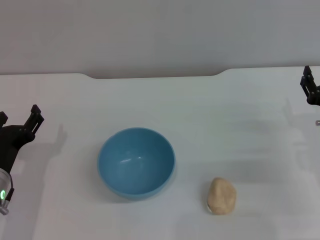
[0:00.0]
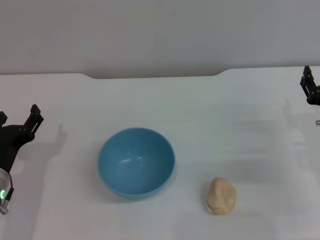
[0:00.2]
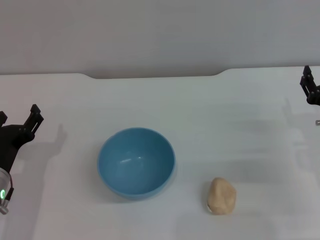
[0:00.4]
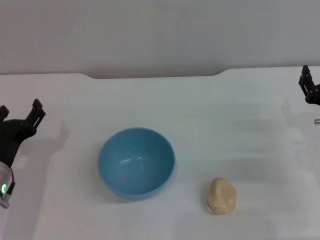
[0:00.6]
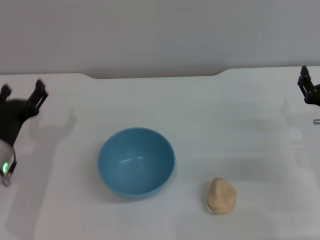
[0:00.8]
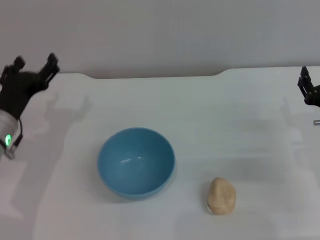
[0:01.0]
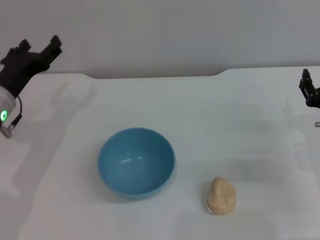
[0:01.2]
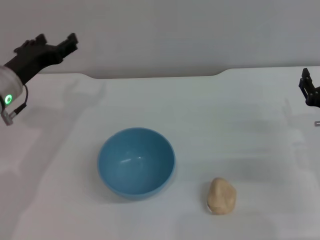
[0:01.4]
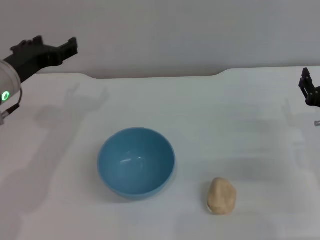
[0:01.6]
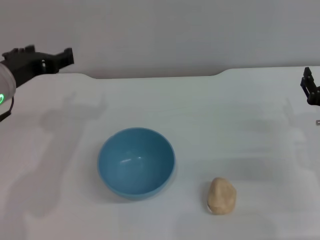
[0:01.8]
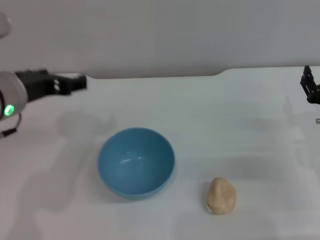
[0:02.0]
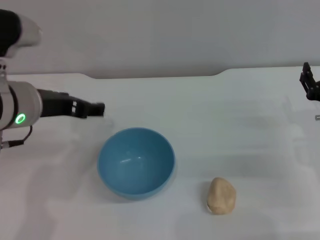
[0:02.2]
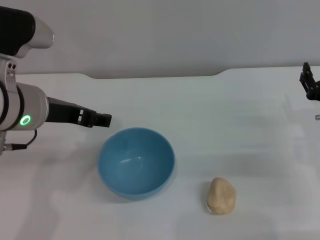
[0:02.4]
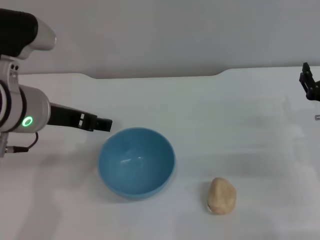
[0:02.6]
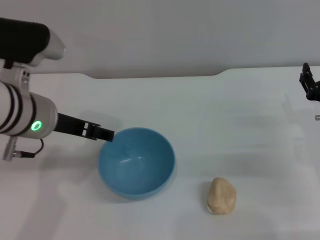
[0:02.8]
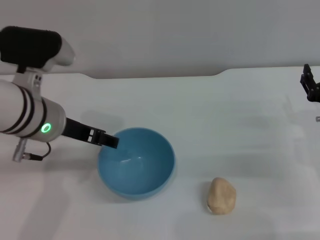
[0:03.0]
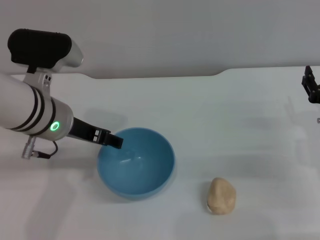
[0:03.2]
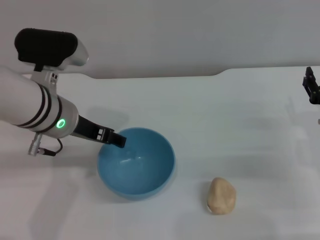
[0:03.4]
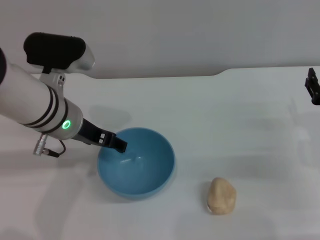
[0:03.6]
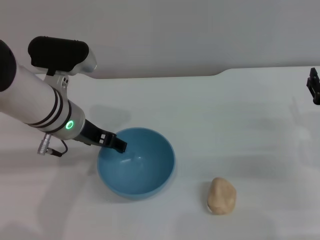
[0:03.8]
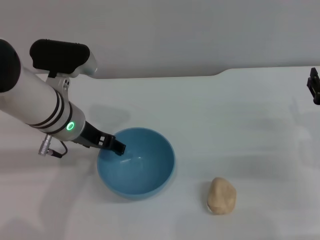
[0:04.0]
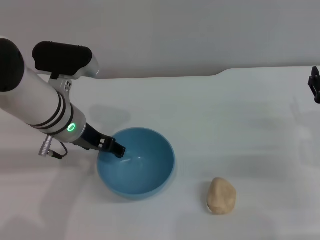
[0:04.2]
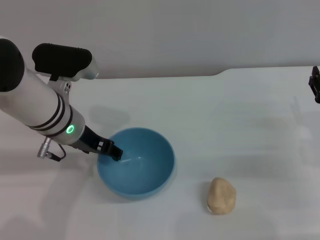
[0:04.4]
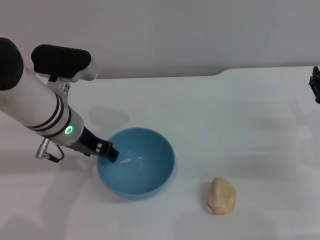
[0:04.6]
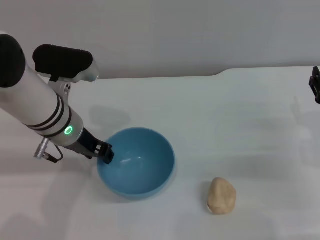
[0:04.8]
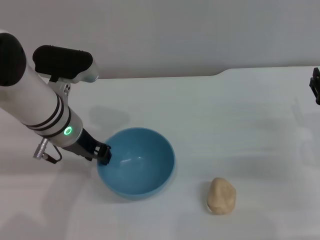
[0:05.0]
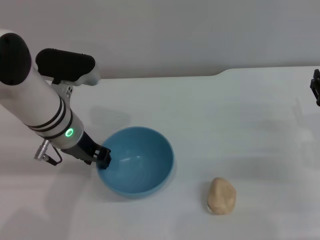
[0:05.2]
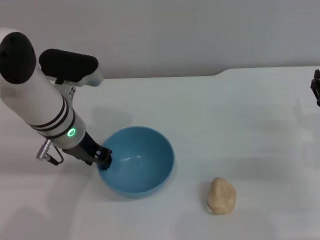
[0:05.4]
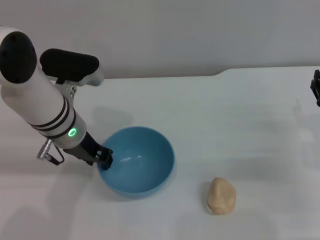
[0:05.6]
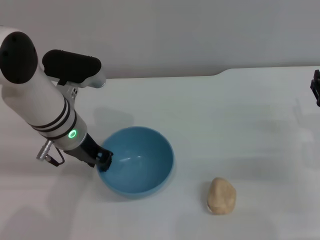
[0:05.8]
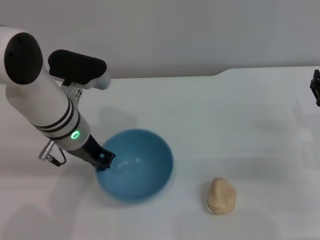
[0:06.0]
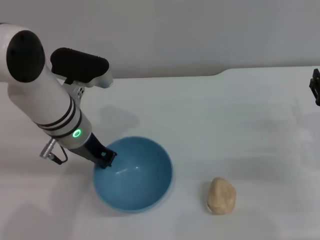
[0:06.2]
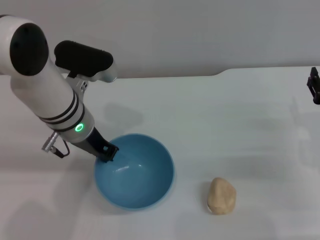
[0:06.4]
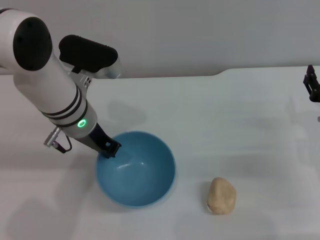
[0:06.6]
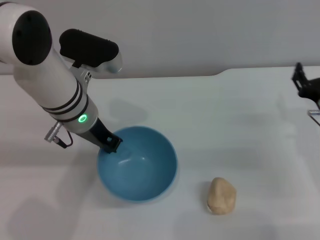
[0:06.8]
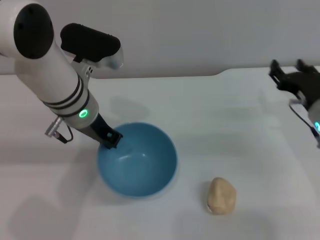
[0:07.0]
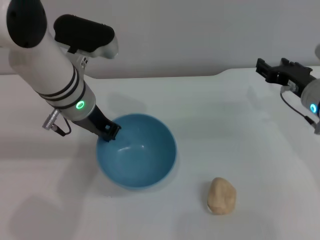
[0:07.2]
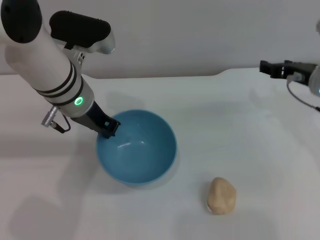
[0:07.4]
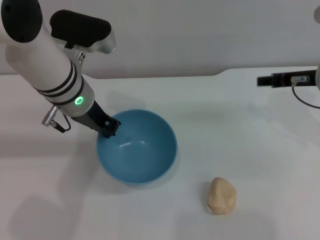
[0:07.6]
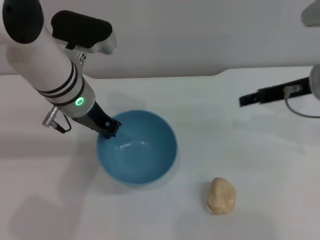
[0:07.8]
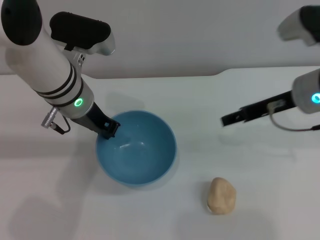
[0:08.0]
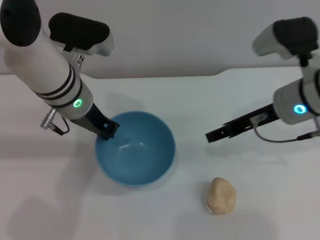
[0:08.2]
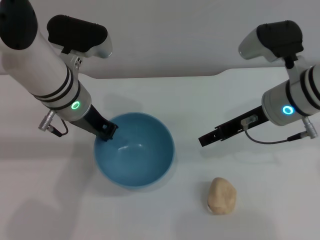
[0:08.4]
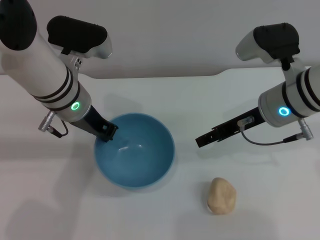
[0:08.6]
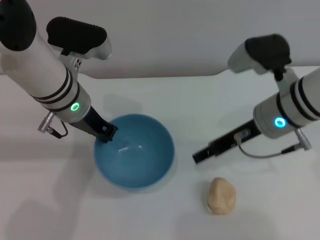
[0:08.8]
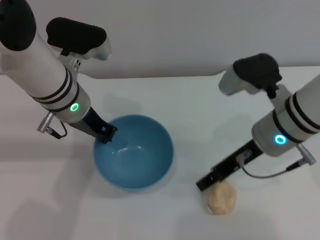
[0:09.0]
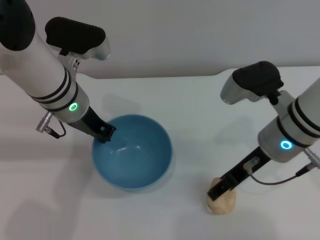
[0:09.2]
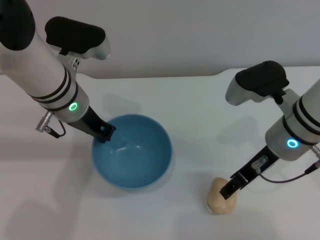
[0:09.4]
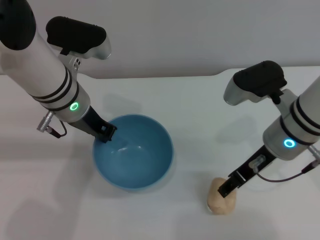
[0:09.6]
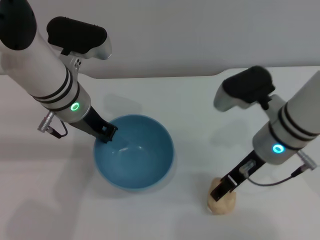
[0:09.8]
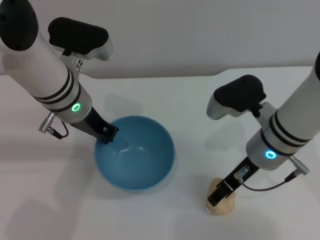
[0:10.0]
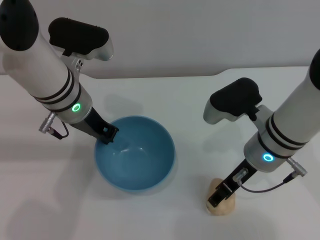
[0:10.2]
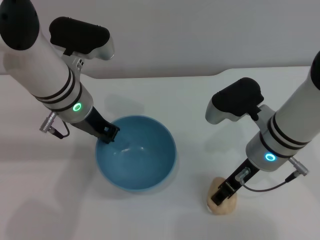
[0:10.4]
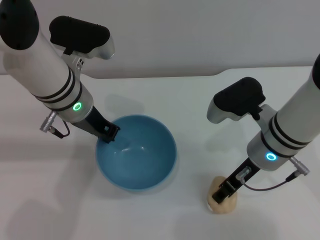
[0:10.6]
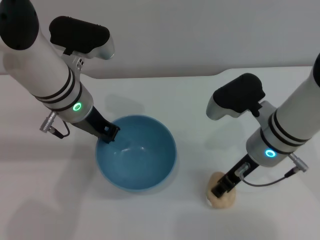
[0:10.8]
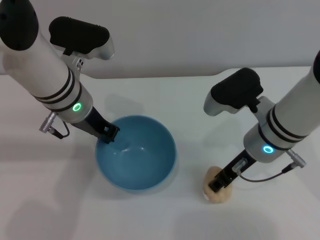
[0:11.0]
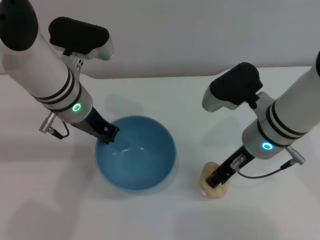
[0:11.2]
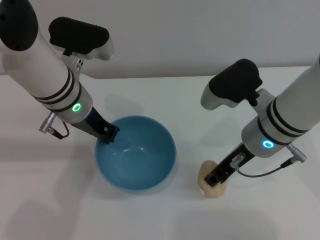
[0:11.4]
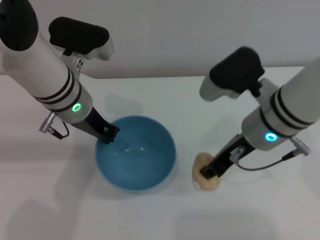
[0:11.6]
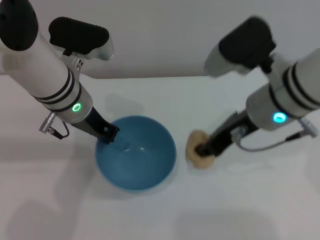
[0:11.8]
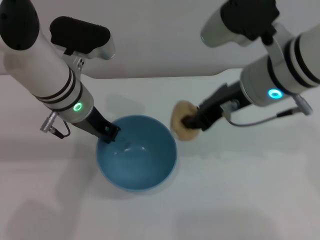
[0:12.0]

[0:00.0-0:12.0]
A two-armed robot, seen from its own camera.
Task of the whole recording: put the egg yolk pastry into the blue bowl and pour it out repeatedly.
Step, 0:00.0 to 0:07.2: Pick up the bowl with the left gripper.
Step, 0:07.4 to 0:11.6: Pick up the egg yolk pastry with the right gripper.
0:00.0 to 0:01.6: The left gripper goes roughly 15 cm upward and forward.
0:01.6 to 0:03.0: The left gripper is displaced to the right by roughly 5 cm.
0:03.0 to 0:04.4: The left gripper ends up about 5 cm from where it was.
0:04.4 to 0:06.0: The left gripper closes up.
0:06.0 to 0:07.6: The right gripper heads upward and forward, covering approximately 15 cm.
0:07.6 to 0:09.0: The right gripper travels to the left by roughly 10 cm.
0:09.0 to 0:10.4: The grippers move only a little.
0:10.4 to 0:12.0: The right gripper goes roughly 10 cm upward, and closes its fingers.

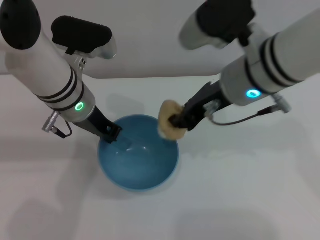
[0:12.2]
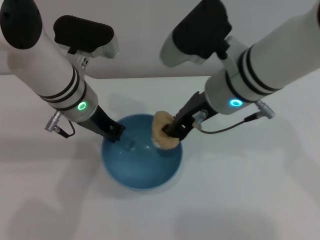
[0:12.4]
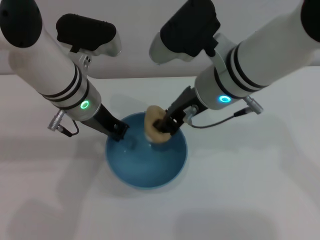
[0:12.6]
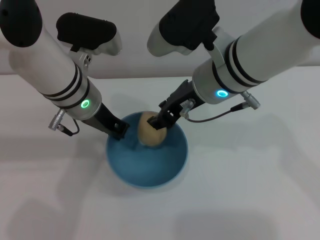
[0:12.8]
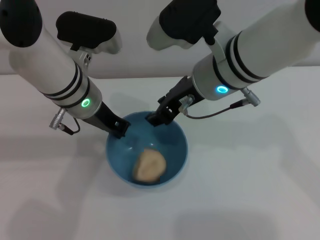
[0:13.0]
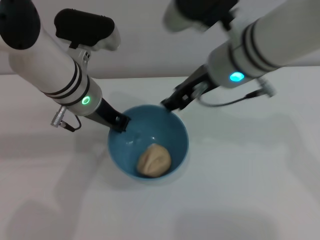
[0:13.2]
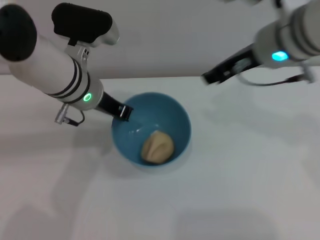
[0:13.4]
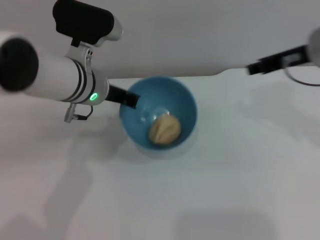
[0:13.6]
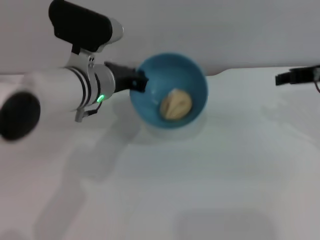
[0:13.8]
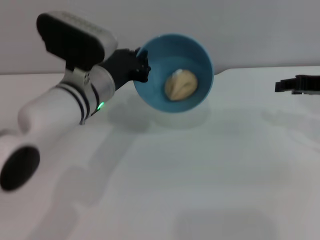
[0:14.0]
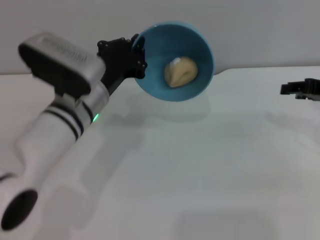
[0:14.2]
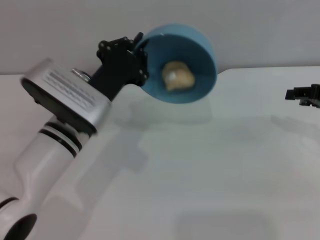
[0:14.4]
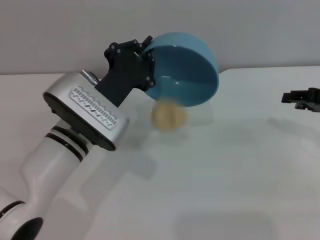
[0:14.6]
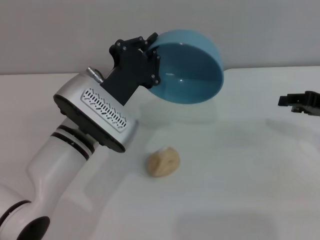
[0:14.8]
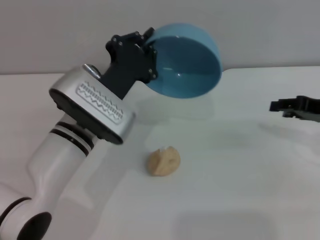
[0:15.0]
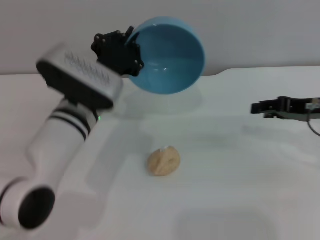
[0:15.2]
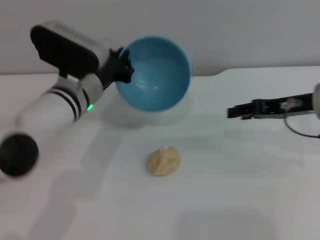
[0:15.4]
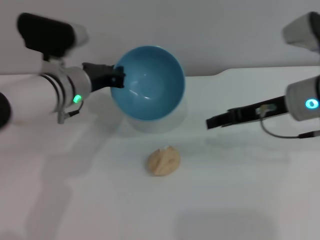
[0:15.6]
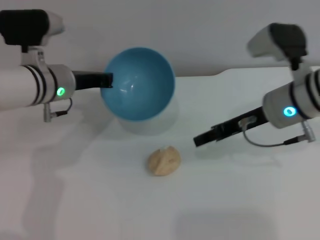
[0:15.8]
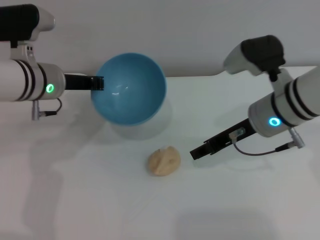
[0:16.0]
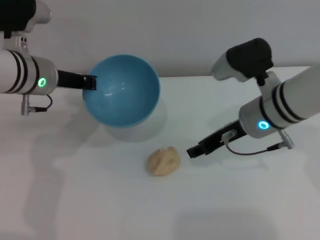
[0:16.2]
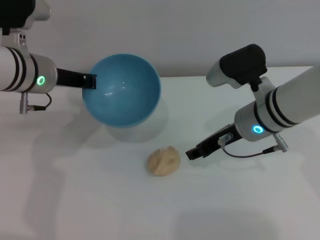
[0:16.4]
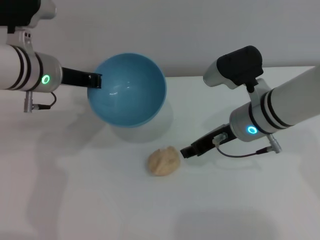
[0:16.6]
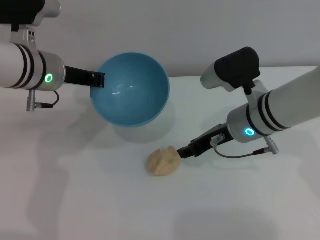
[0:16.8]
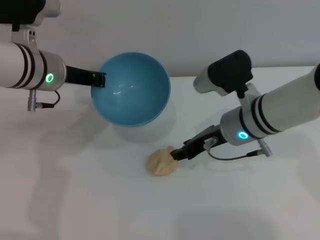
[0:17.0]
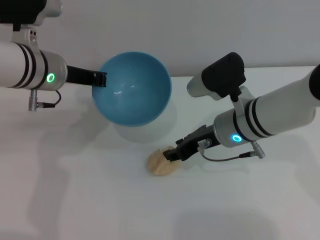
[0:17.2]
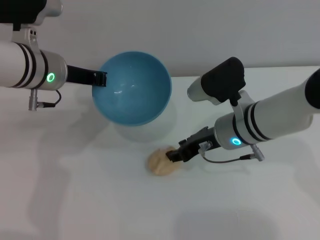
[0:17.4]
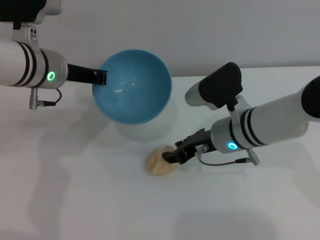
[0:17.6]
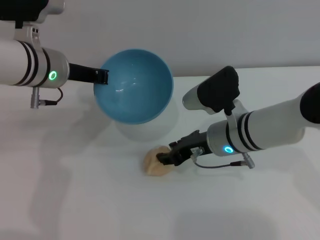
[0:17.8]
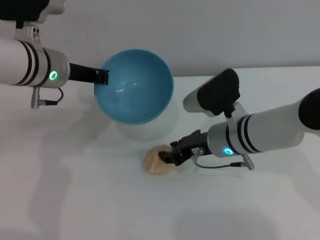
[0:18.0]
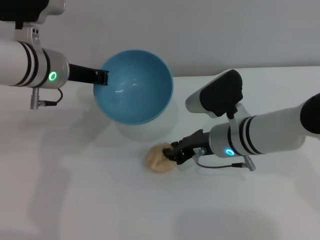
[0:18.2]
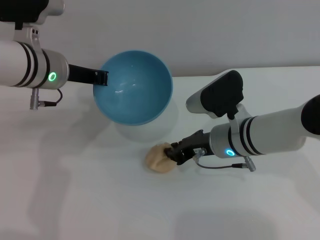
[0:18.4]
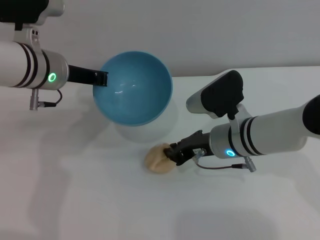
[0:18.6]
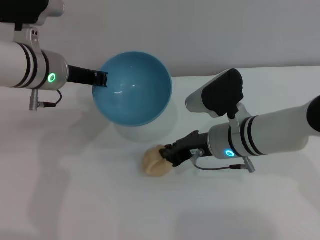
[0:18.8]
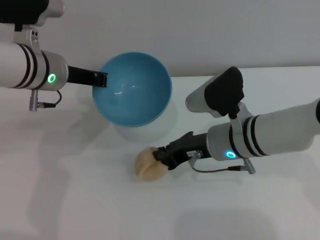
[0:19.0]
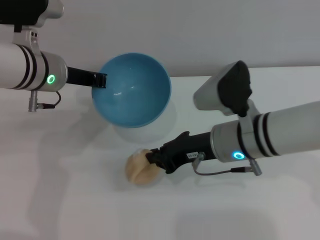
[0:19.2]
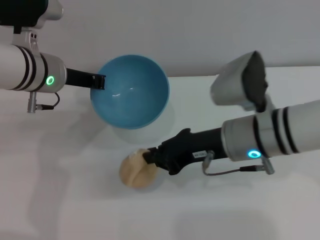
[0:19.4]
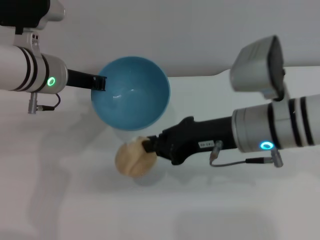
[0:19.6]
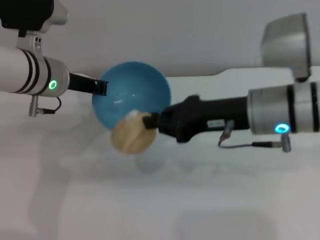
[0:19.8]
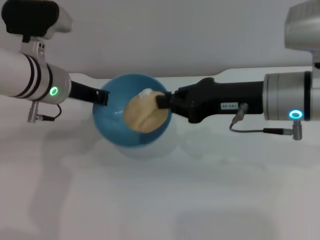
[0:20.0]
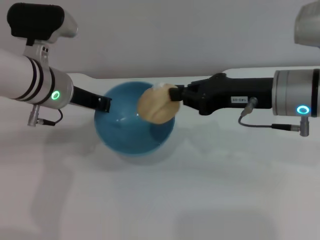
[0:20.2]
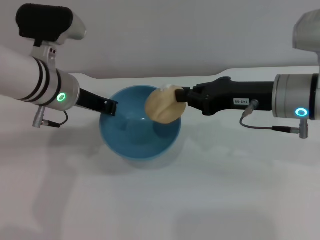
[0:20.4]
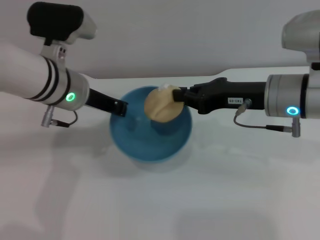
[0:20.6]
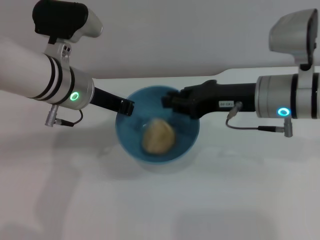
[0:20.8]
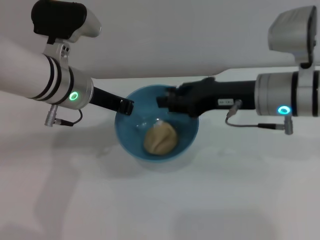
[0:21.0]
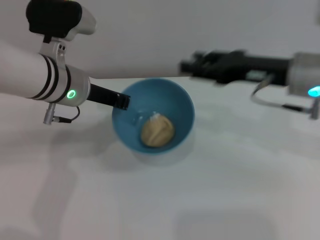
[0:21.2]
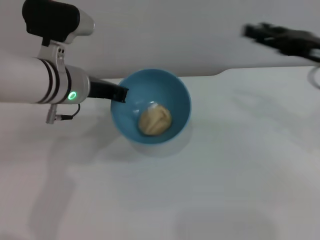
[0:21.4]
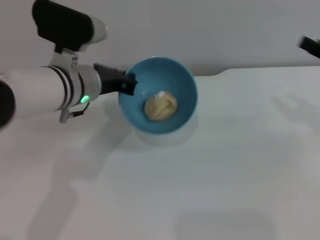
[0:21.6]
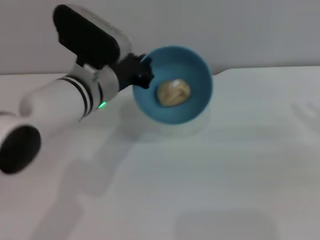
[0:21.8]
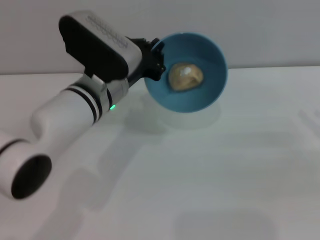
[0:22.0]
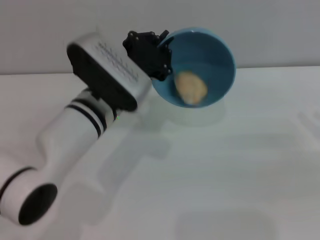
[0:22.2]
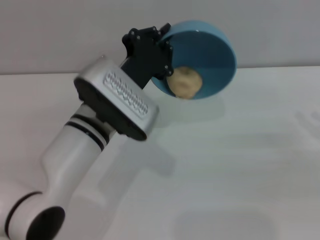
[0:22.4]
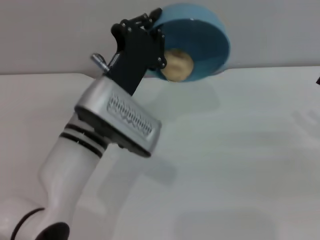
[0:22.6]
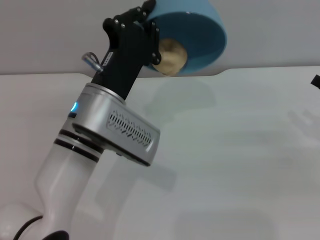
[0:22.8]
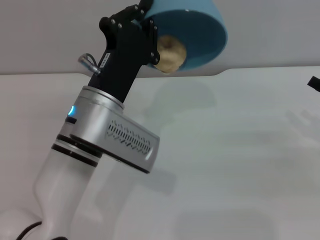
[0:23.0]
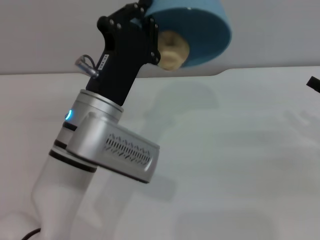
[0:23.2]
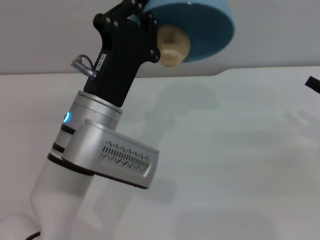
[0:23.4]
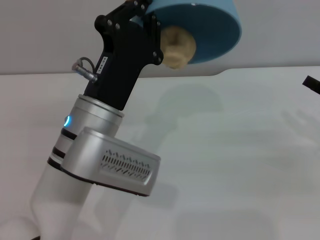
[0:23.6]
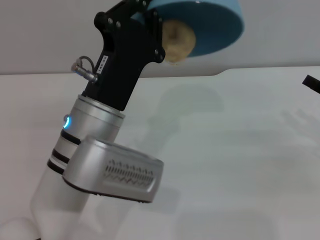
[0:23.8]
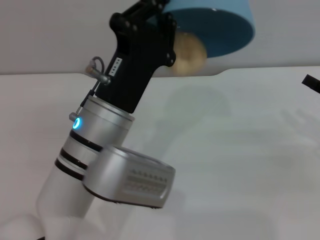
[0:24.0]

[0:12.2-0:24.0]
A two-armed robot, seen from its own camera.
Task of the whole recording: put the egg yolk pastry into the blue bowl and pour it out repeatedly.
Step, 0:12.2 to 0:13.2: Place the egg yolk pastry into the bowl.
Step, 0:13.4 to 0:15.4: Pour the egg yolk pastry out of bowl.
Step, 0:15.6 to 0:19.4: Pick up the egg yolk pastry with the right gripper.
Step, 0:19.8 to 0:21.0: Place the egg yolk pastry into the bowl.
0:12.2 to 0:13.6: The right gripper is displaced to the right by some 10 cm, and opens its fingers.
0:13.6 to 0:15.2: The right gripper travels downward and to the right by about 10 cm. Meanwhile the left gripper ends up approximately 5 cm from where it was.
0:15.2 to 0:16.6: The left gripper is displaced to the left, upward and forward by about 10 cm; the right gripper shifts some 15 cm to the left.
0:16.6 to 0:18.2: The right gripper changes place by some 5 cm.
0:18.2 to 0:19.6: The right gripper shifts about 10 cm upward, and closes.
0:19.6 to 0:21.0: The right gripper shifts by some 5 cm.
0:21.0 to 0:22.6: The right gripper moves to the right, about 20 cm, and opens its fingers. The left gripper heads backward and to the right, covering about 10 cm.
